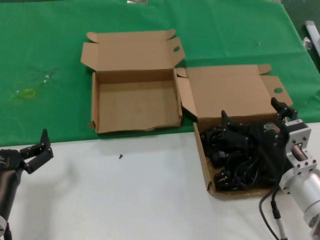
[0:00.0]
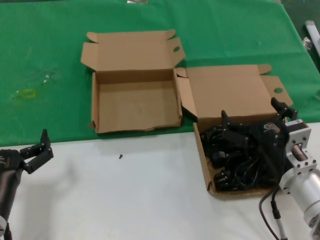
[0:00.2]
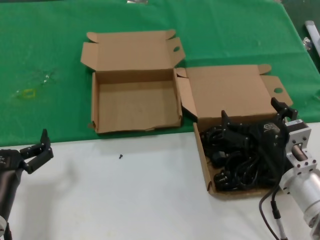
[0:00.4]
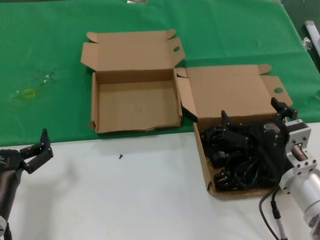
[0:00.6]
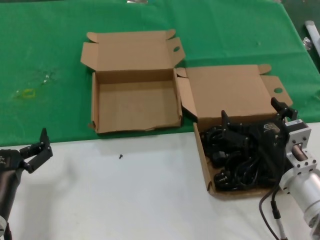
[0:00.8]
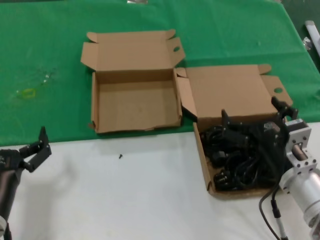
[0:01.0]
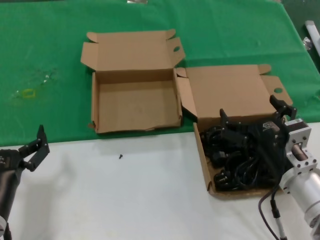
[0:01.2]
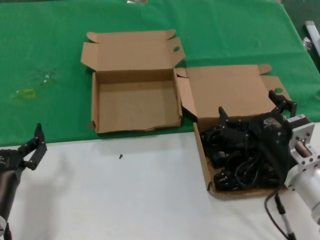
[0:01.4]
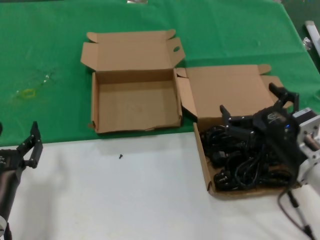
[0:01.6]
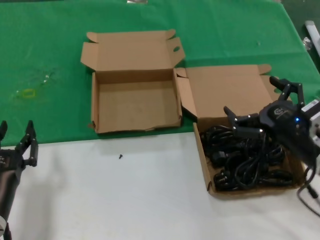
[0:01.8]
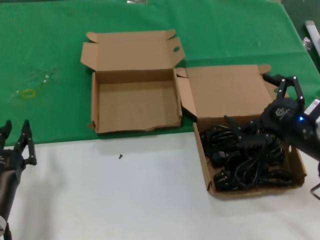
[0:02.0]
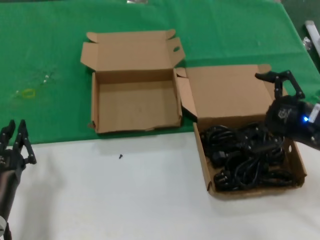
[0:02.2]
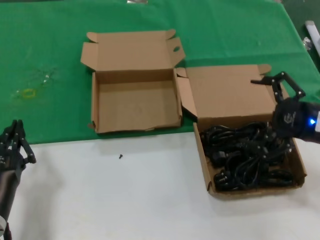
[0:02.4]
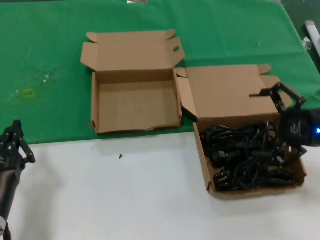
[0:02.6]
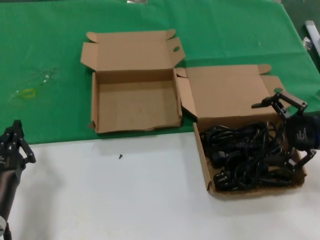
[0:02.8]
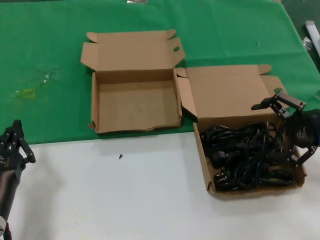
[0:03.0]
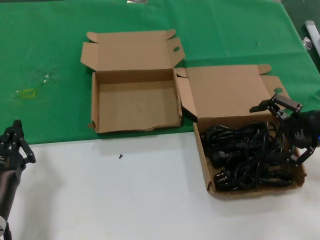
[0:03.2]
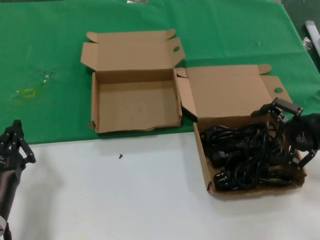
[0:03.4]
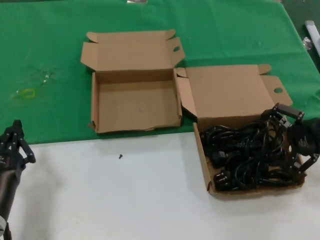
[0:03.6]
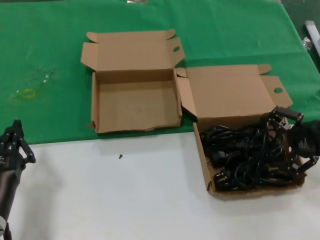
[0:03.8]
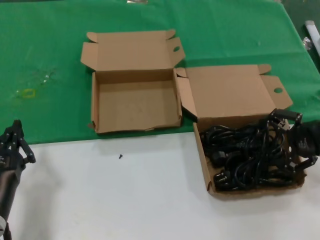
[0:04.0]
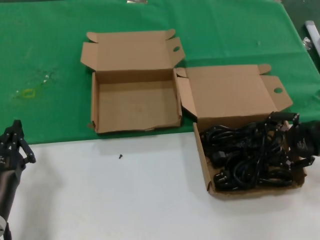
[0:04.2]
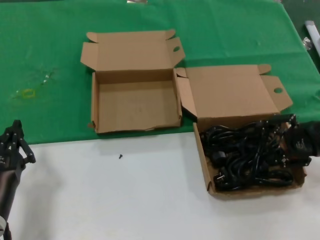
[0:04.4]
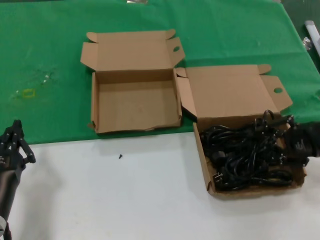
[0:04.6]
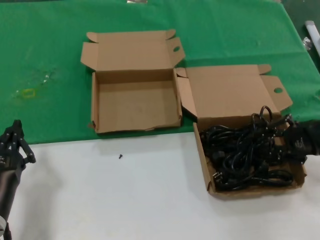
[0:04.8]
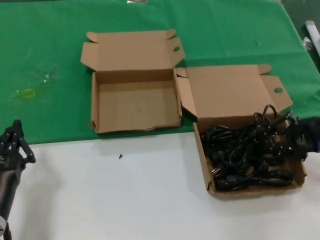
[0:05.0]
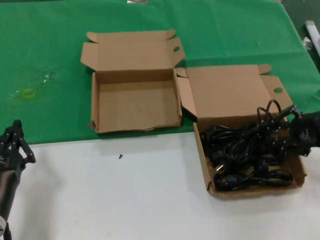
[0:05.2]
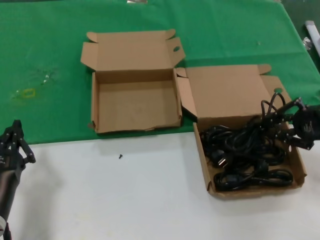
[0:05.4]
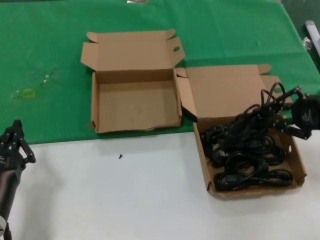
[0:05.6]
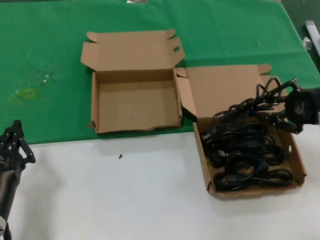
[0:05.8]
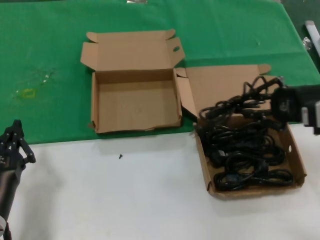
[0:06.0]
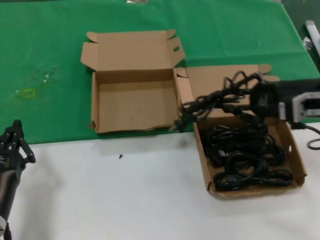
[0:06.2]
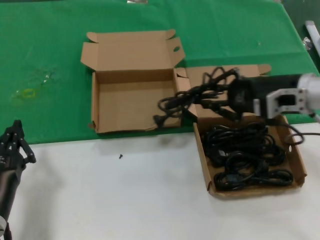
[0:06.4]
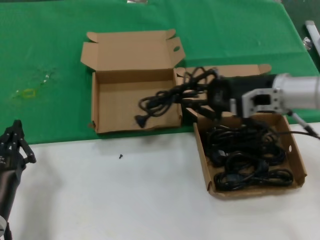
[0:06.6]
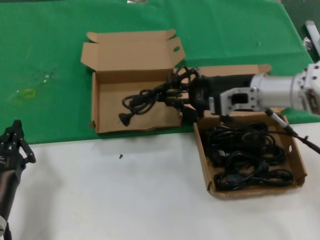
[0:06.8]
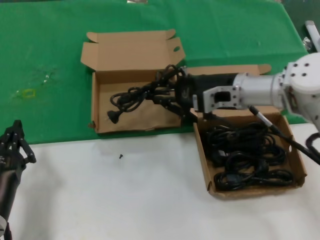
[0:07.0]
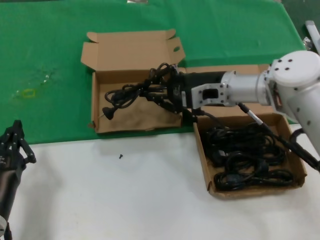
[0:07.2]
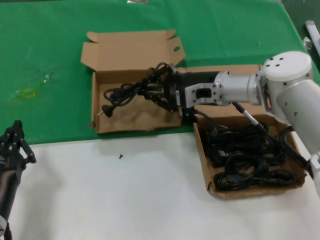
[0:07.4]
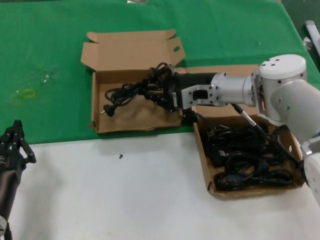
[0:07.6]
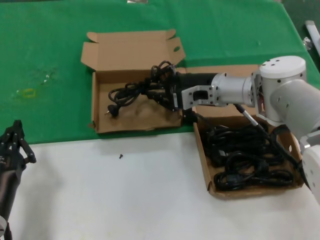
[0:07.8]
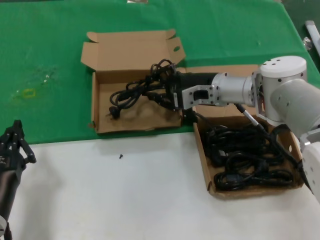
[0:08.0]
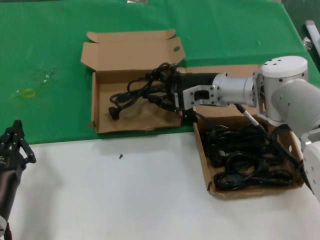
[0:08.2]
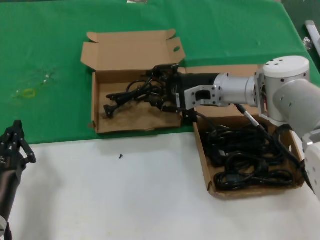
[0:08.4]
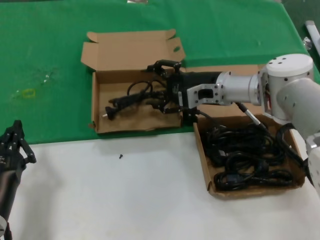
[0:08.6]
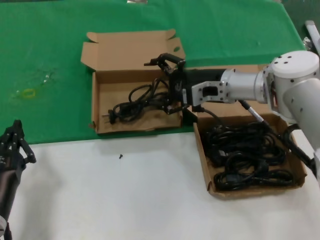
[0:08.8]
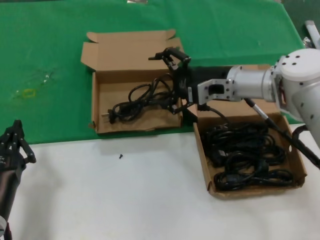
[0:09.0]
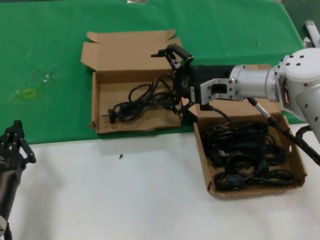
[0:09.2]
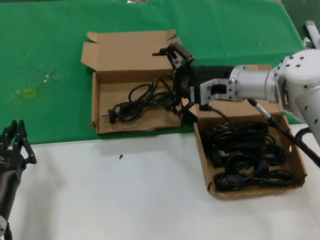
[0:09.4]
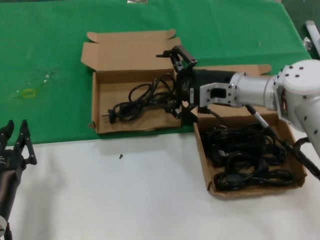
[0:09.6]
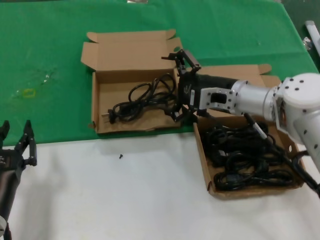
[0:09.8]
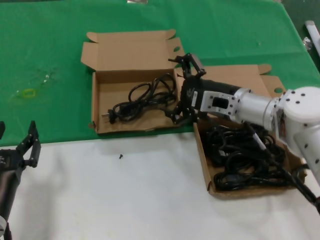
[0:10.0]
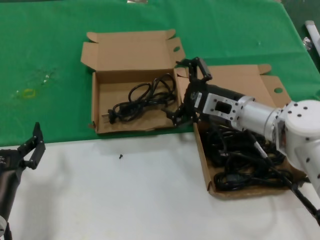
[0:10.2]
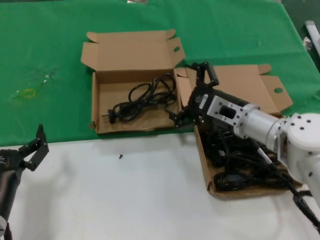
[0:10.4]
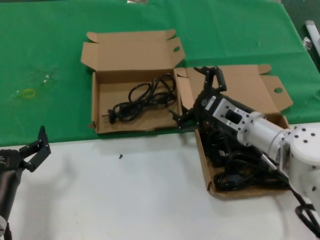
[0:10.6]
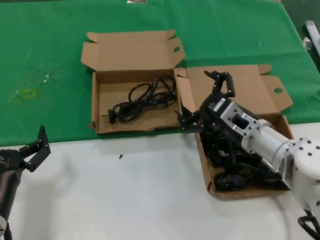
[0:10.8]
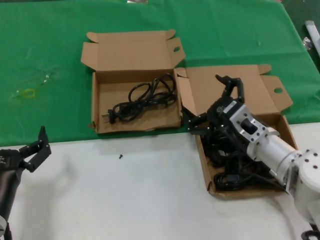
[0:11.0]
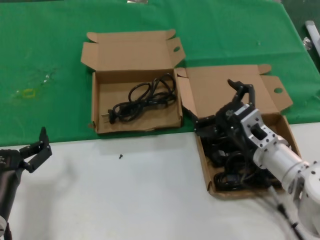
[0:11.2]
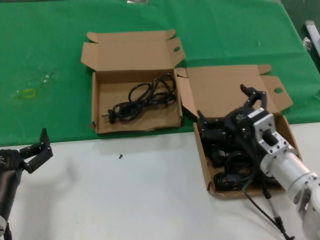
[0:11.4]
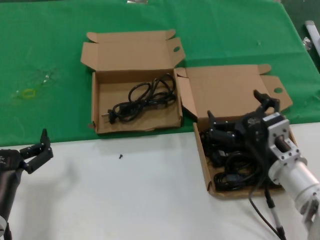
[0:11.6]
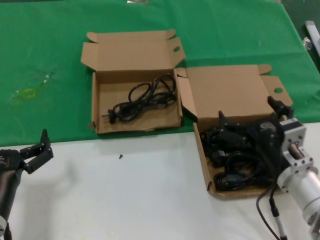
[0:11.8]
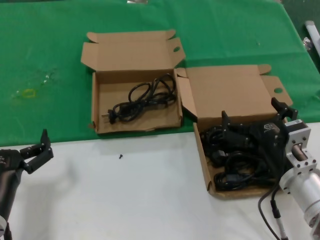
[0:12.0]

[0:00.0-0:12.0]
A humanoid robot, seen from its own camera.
Task of the whole recording: take the parts from the box containing them and put them into an empty box.
Step, 0:00.0 to 0:04.2: Grasp the data cable.
Step, 0:04.4 to 0:08.6: Place the data cable in the another box.
0:00.0 to 0:01.6: The hands make only small movements.
0:01.6 to 0:03.0: The right hand travels to the right, upward and forward by some 20 cm.
0:03.0 to 0:04.4: The hands make only small movements.
0:04.4 to 0:06.0: The right hand is displaced upward by roughly 5 cm.
0:06.0 to 0:07.6: The right hand shifts approximately 25 cm to the left and forward.
0:07.6 to 0:09.0: There are only small adjustments of the hands.
0:09.0 to 0:10.4: The right hand goes approximately 10 cm backward and downward.
0:10.4 to 0:12.0: The right hand travels backward by approximately 15 cm.

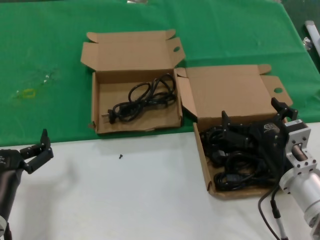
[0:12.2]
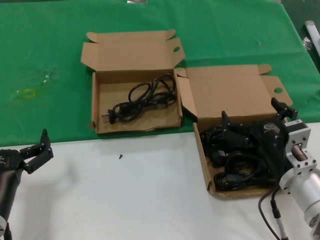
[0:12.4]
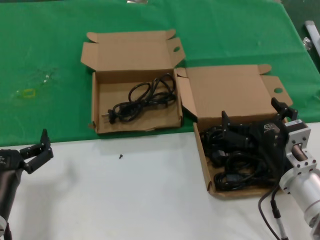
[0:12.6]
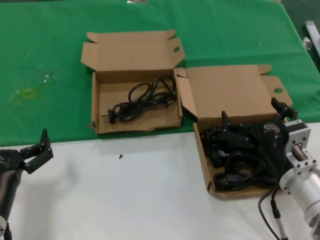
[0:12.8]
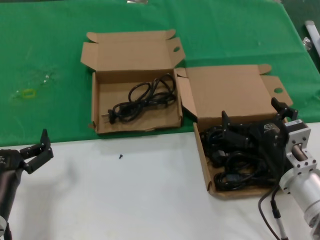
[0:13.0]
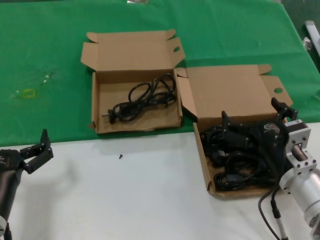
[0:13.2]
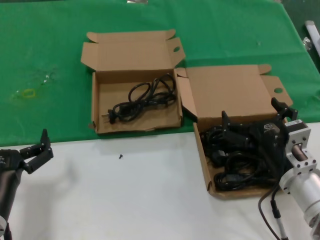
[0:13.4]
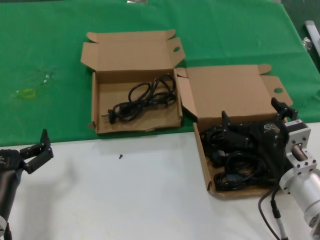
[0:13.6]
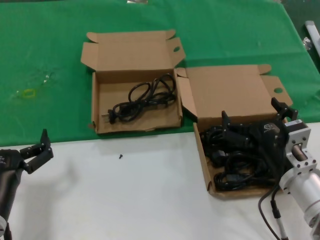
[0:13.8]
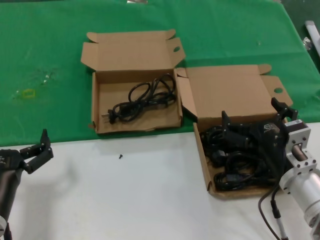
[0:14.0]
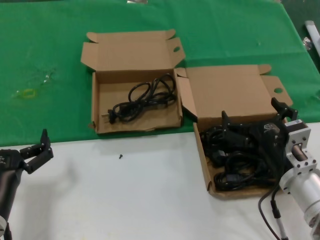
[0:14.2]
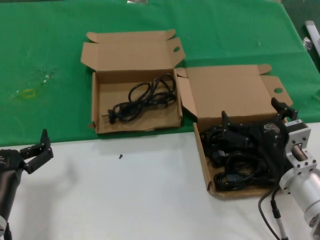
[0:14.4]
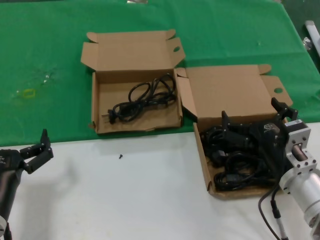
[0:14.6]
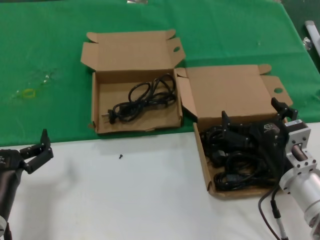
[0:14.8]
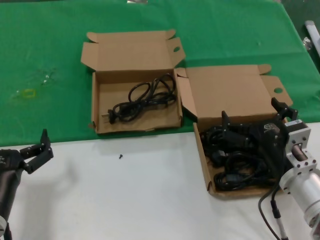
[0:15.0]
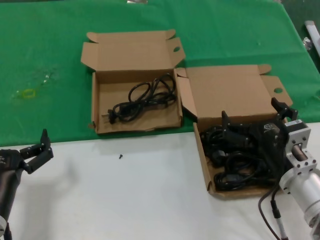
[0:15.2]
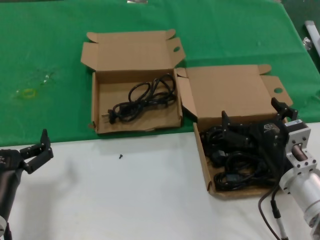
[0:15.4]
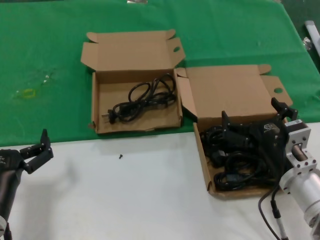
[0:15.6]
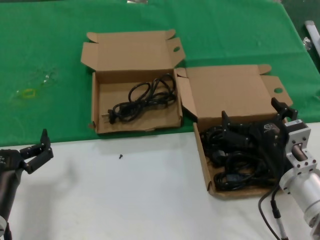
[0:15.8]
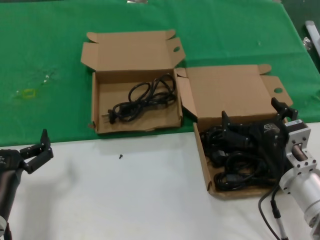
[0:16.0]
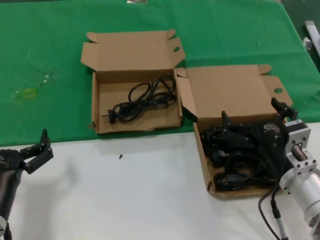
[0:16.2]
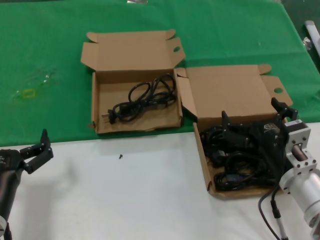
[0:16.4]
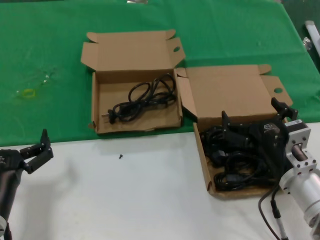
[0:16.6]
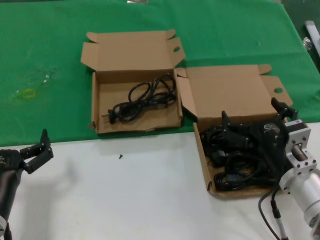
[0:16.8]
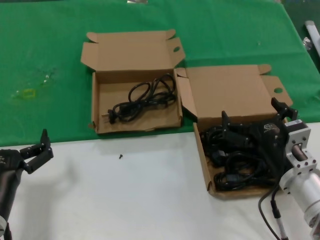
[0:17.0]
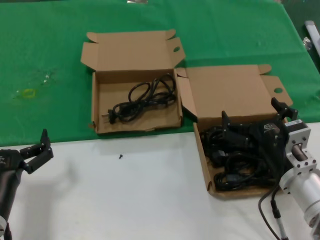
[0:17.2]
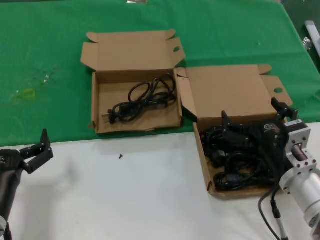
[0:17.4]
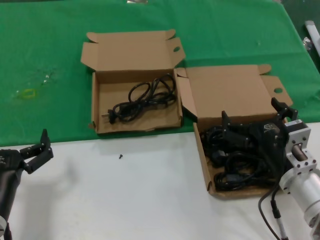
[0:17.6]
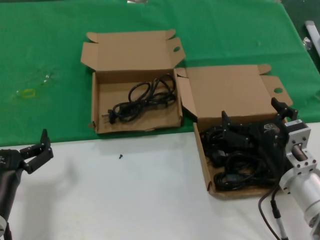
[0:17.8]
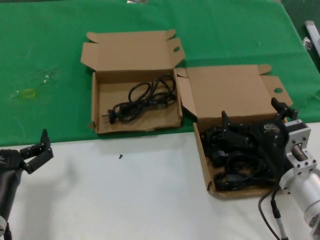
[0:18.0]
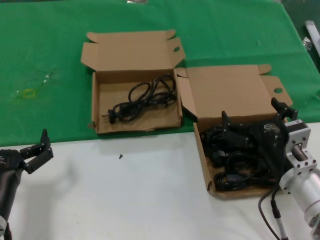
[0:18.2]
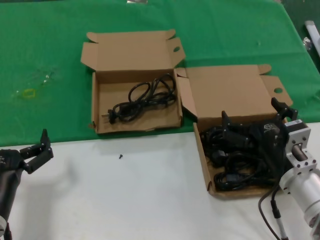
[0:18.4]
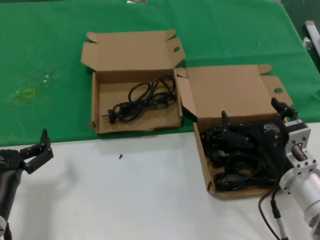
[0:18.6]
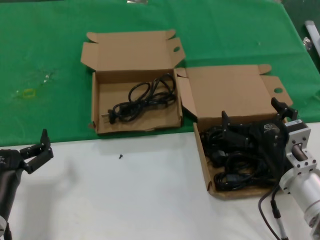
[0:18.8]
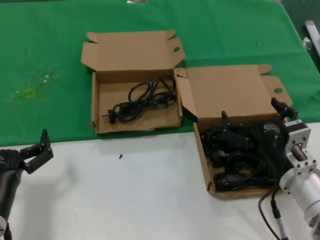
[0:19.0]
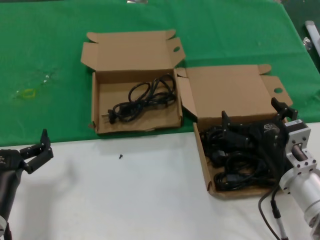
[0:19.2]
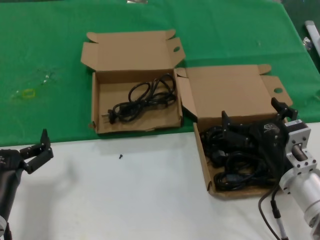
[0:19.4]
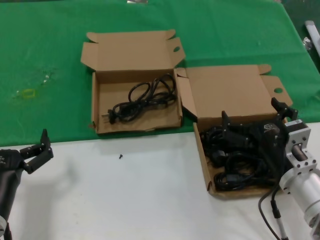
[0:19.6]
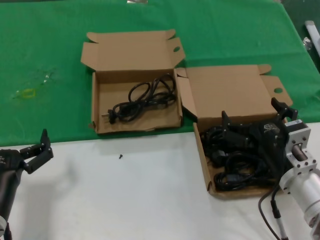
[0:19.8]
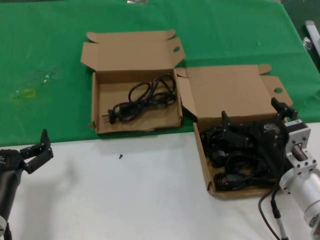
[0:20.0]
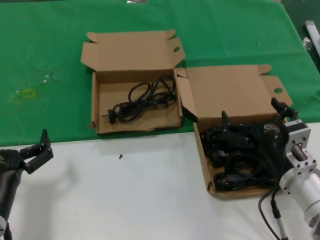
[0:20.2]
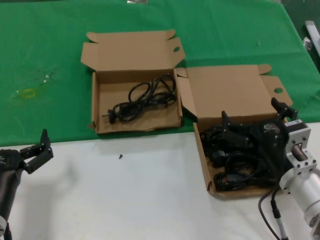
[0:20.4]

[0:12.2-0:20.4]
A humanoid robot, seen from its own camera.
Task of the whole recording: take the parts from the box containing them and put them into an empty box.
0:12.2 to 0:20.4: Both hands stay about where they are.
